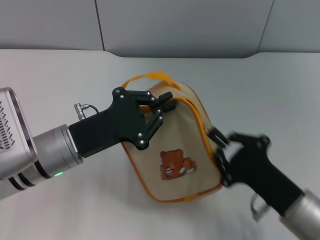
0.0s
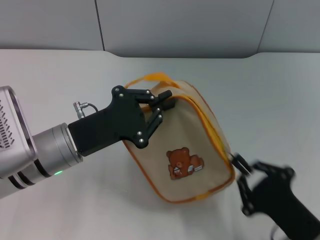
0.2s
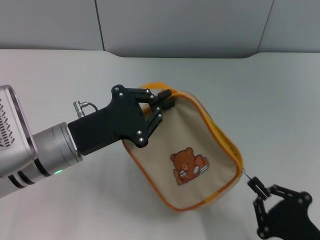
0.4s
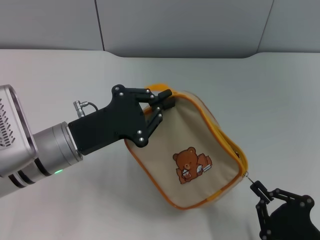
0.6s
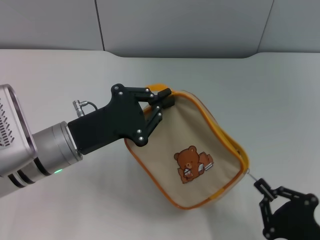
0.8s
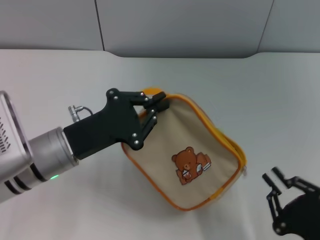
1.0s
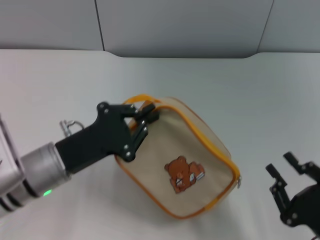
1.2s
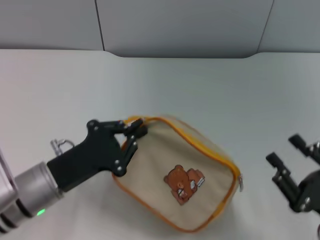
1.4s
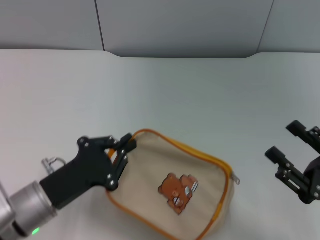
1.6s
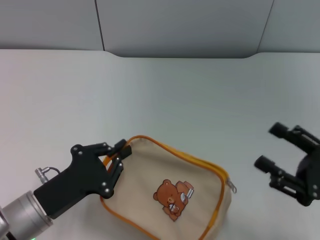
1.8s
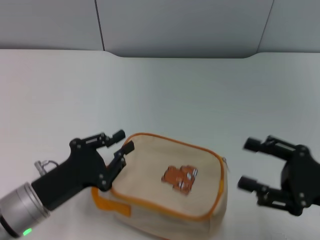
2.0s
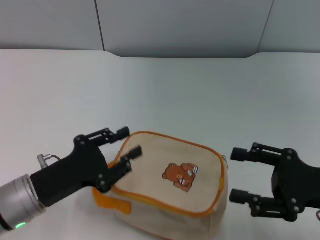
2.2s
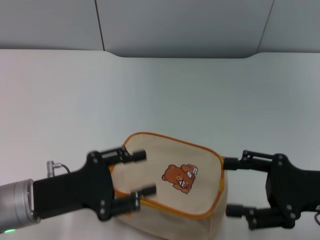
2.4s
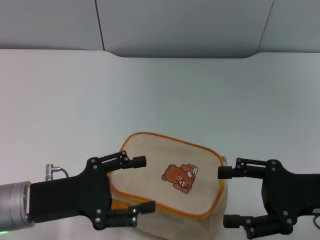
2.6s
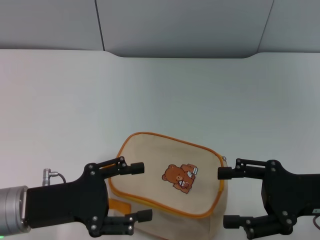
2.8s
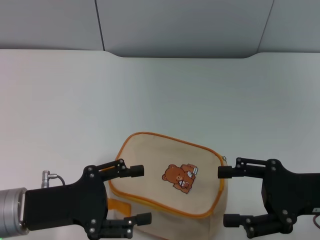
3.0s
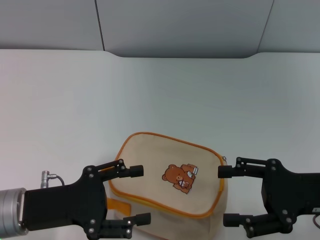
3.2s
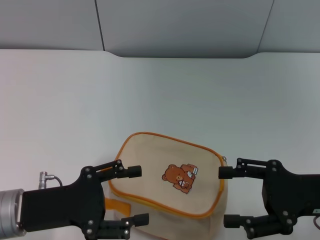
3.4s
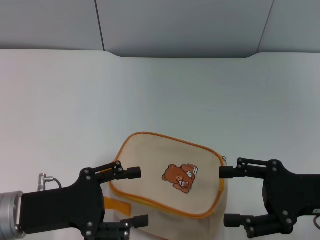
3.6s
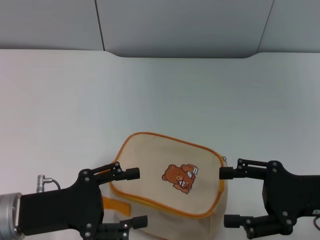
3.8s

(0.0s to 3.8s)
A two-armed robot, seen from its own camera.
Step, 1.2s - 2.2s: Place the bag on the table with left gripper.
0.0s - 1.2s: The right gripper goes roughly 10 cm backward.
1.2s - 2.6s: The right gripper heads forward and upward, covering roughly 15 cm, and opens up, while the left gripper ends up about 5 cm from where it was, and opens up.
2.6s - 3.8s: The grippers stay close to where they were, moving slightly.

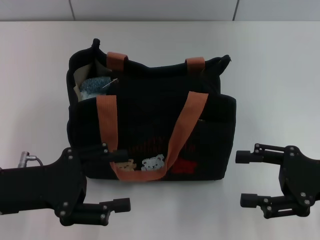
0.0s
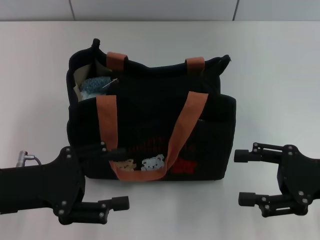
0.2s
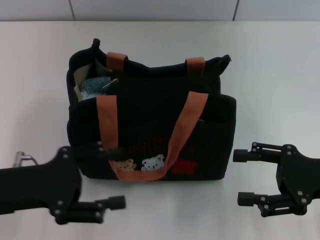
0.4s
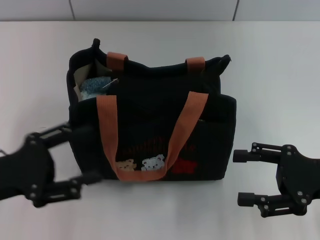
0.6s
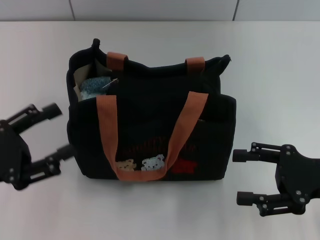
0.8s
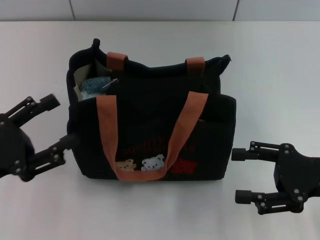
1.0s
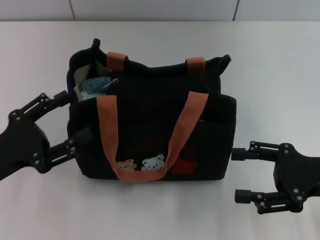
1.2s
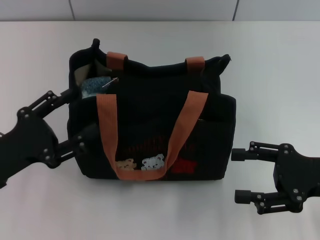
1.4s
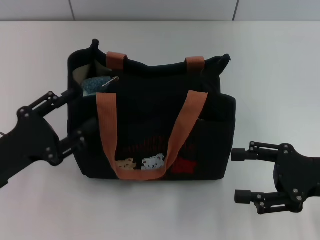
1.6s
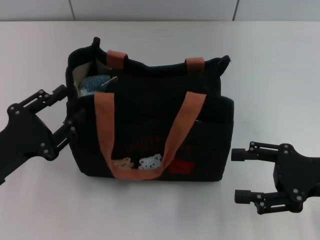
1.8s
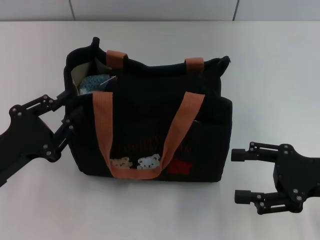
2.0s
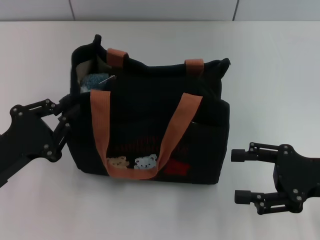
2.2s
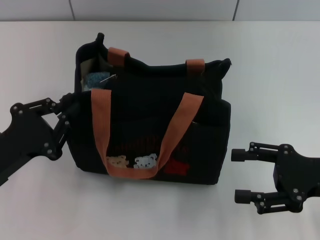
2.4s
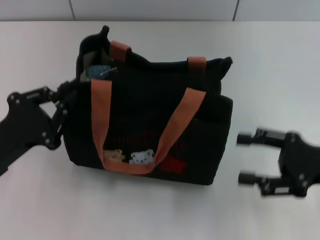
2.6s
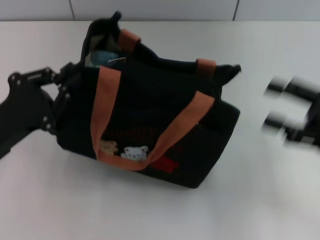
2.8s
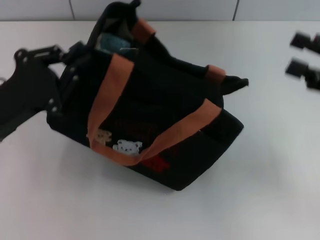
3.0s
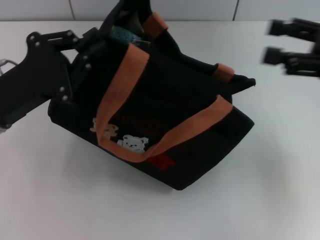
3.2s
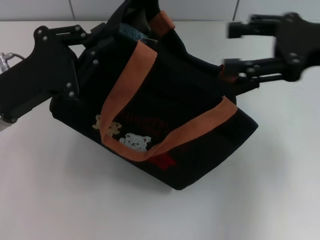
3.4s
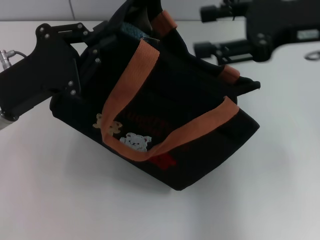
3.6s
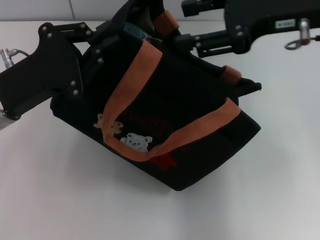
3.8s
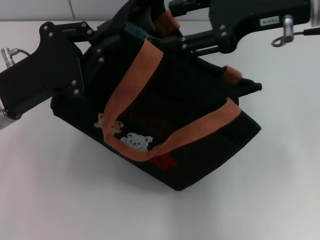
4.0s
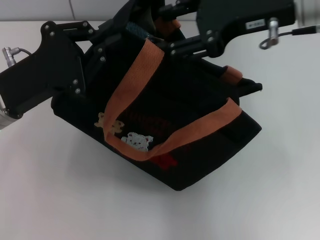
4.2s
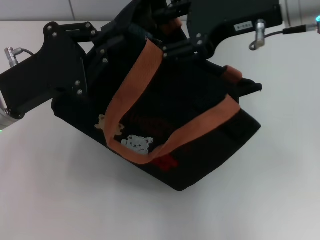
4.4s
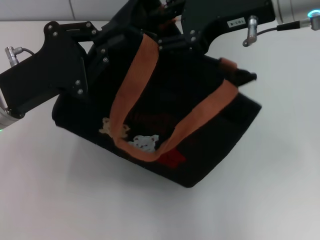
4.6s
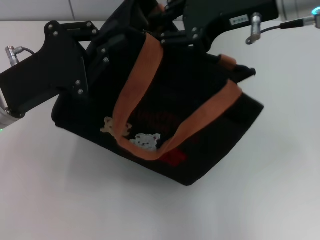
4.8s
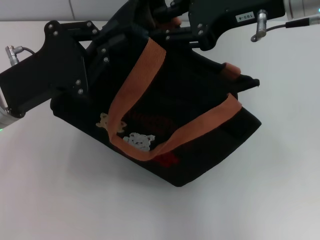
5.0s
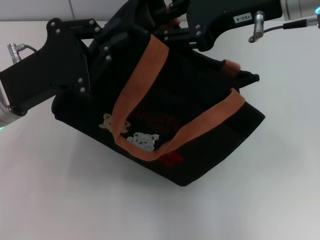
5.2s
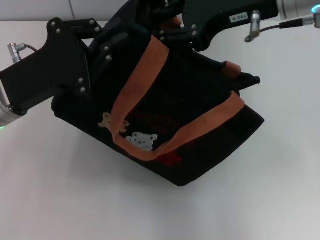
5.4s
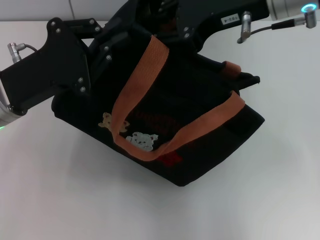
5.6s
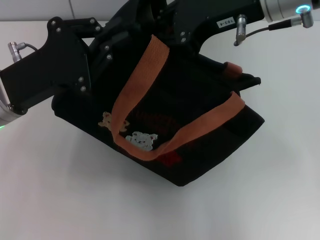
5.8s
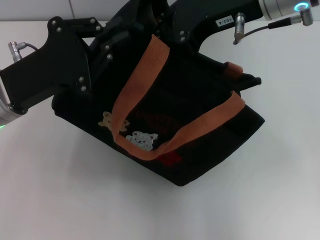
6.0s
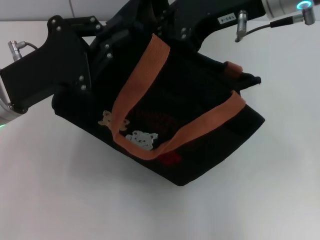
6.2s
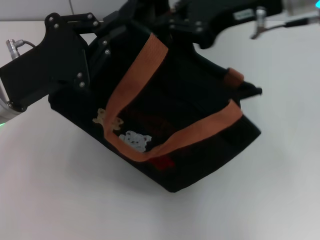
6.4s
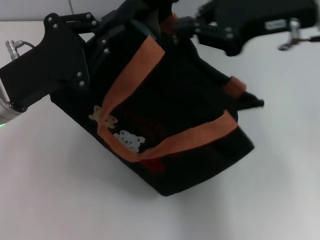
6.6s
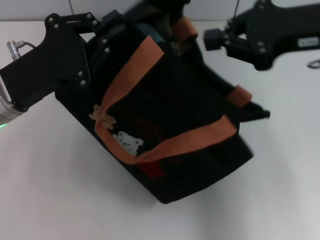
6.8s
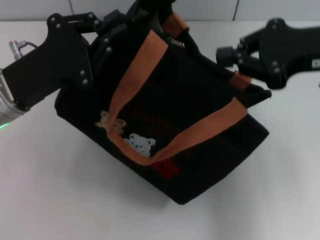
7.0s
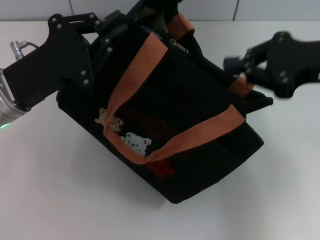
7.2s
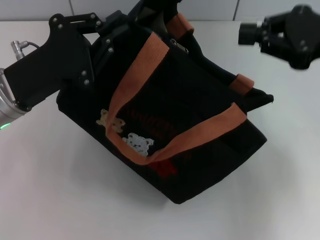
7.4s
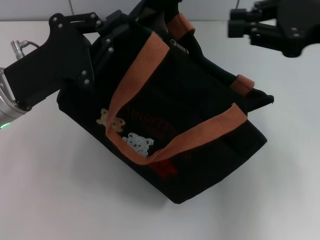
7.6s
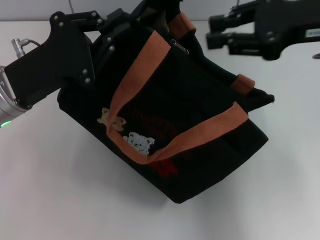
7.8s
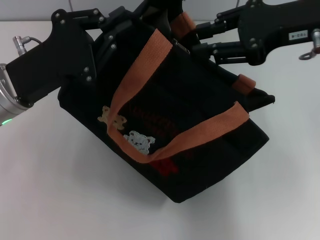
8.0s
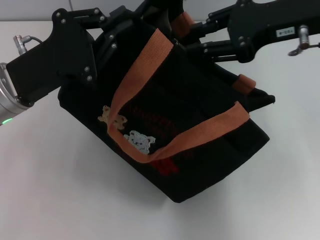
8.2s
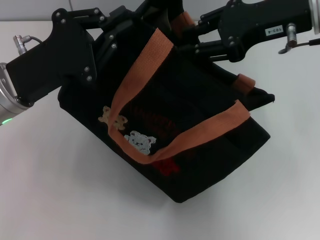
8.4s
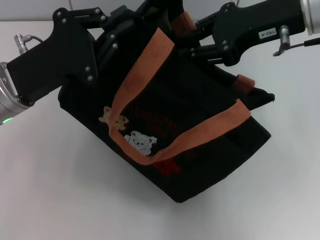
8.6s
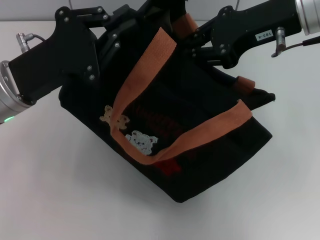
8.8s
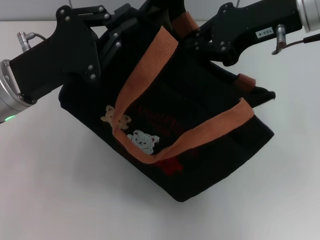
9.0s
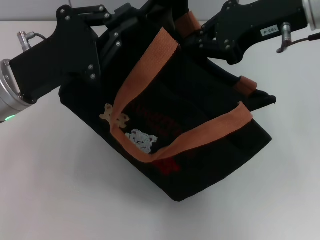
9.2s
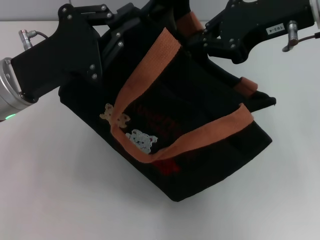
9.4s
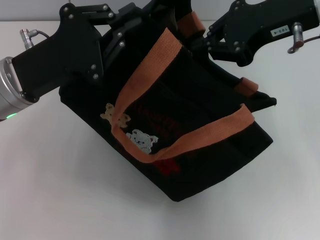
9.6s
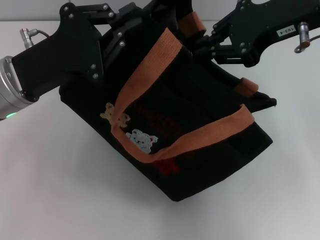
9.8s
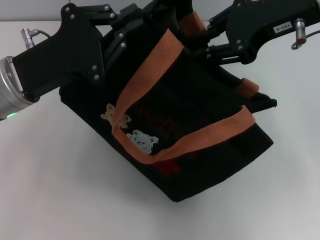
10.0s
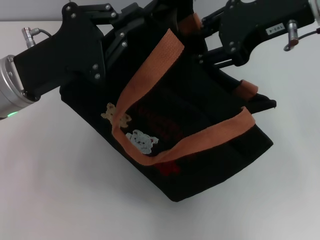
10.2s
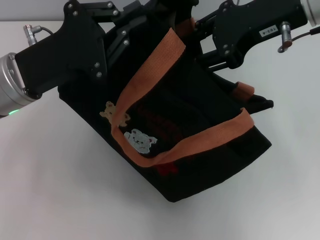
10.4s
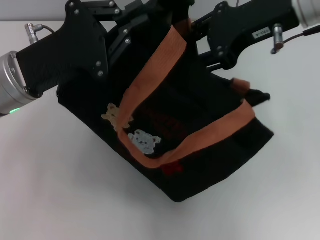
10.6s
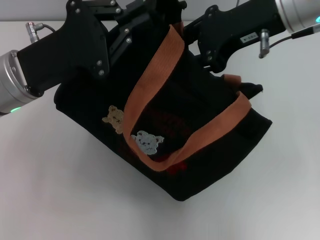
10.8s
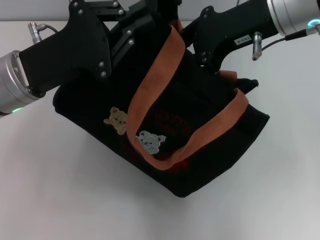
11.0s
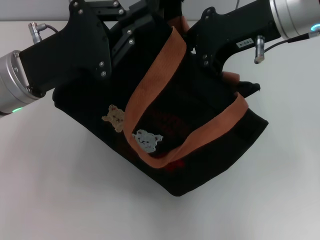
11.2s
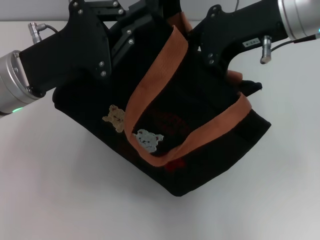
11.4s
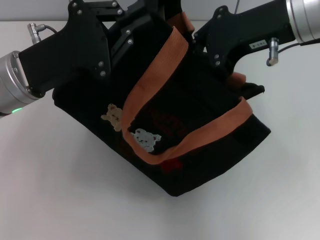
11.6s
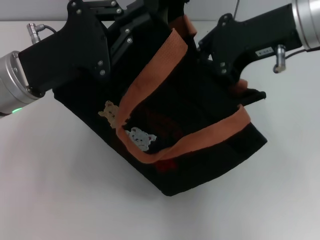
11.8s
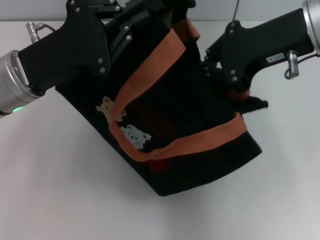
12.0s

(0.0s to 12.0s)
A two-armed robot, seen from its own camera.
1.6s - 3.0s: The right gripper heads upward, covering approximately 5 cm. The left gripper ends up about 5 cm from where it was, and closes up.
3.0s - 4.4s: The right gripper goes roughly 20 cm to the left, upward and forward.
4.4s - 6.0s: The right gripper closes up.
6.0s - 7.6s: The right gripper goes roughly 10 cm to the right.
7.6s - 9.0s: The right gripper is displaced to the left by some 5 cm.
9.0s - 10.4s: The grippers make only small movements.
10.4s - 12.0s: The right gripper closes its fingers.

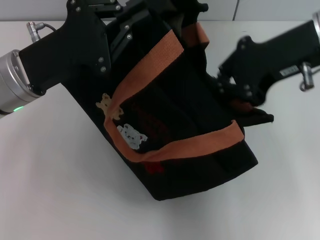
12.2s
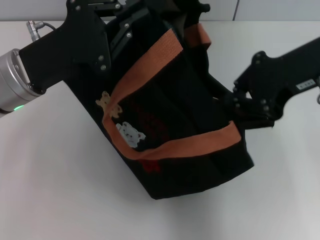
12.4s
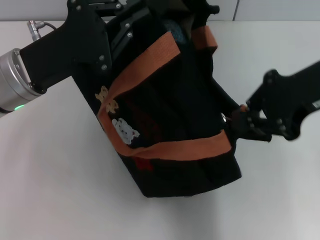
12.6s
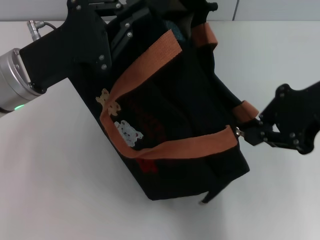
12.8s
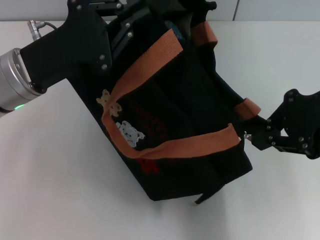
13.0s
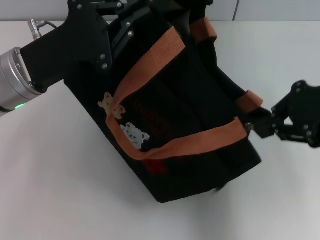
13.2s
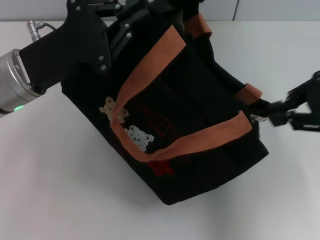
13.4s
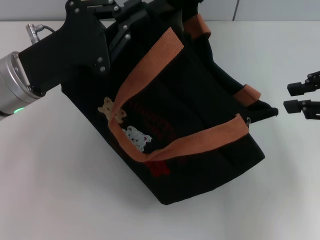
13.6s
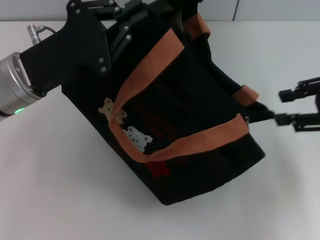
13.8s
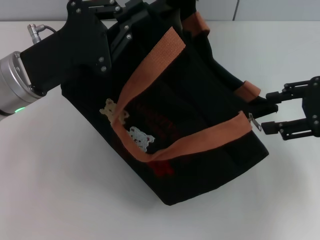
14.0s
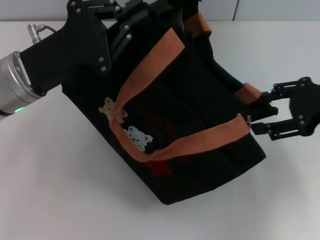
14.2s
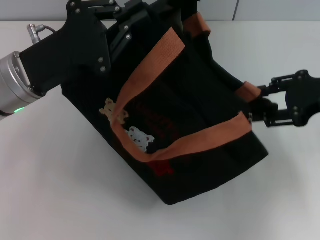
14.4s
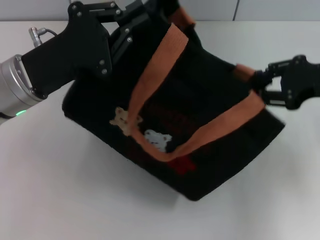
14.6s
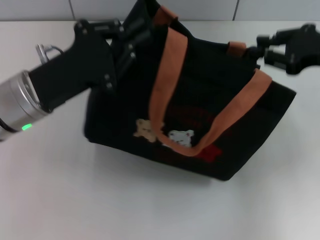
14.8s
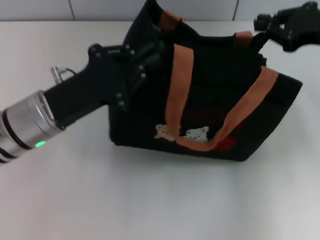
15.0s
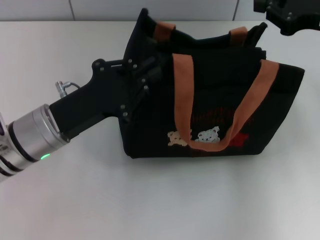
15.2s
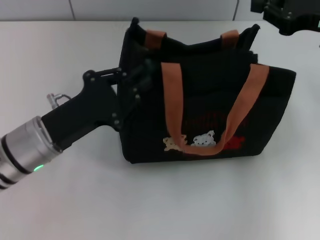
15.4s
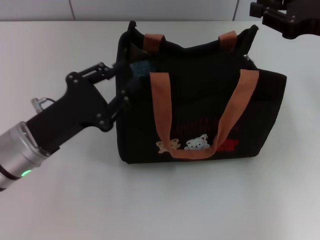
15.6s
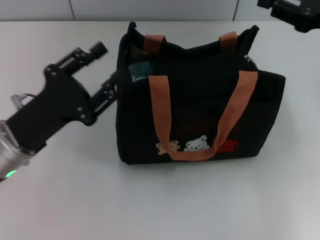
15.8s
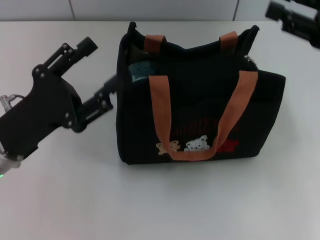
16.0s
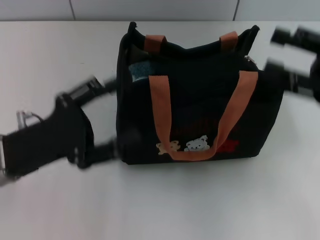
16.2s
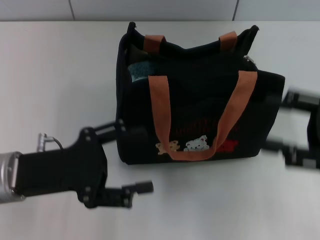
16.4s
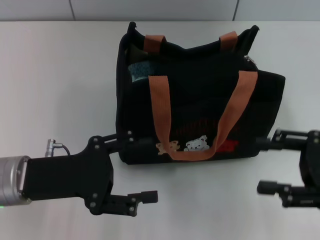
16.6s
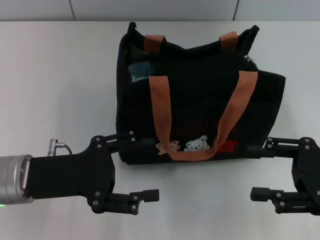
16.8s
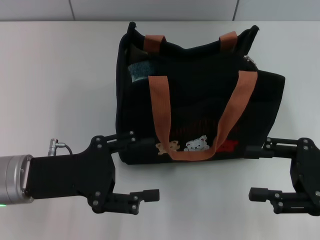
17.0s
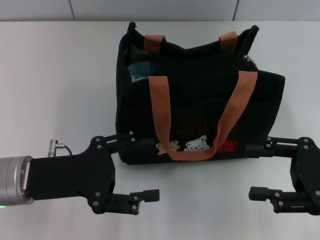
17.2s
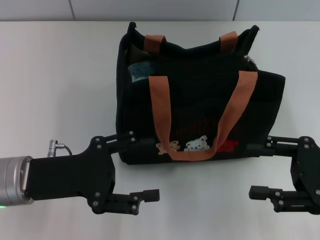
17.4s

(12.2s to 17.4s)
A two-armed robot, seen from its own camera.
Step, 13.6s - 15.6s: Grab the bag with your left hand.
12.2s - 14.0s: The right gripper moves to the right and downward, about 15 cm, and opens its fingers.
14.0s - 15.6s: The right gripper moves forward, roughly 5 cm, and closes. Meanwhile the left gripper shifts some 10 cm downward and backward.
15.6s - 17.4s: The right gripper shifts some 15 cm backward and downward, and opens its fingers, while the left gripper opens.

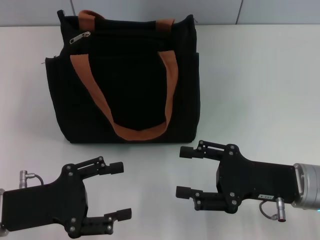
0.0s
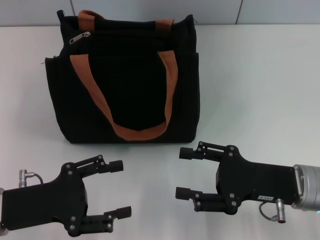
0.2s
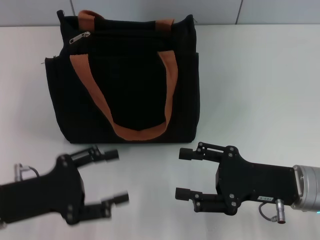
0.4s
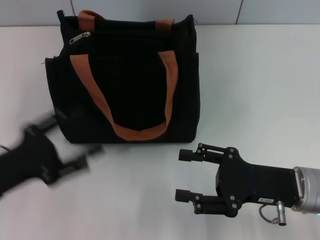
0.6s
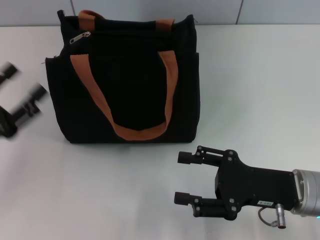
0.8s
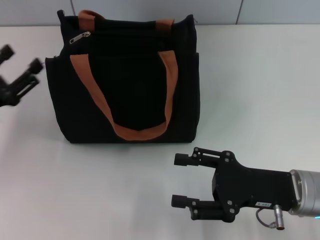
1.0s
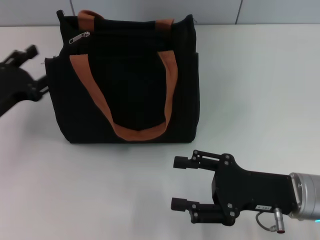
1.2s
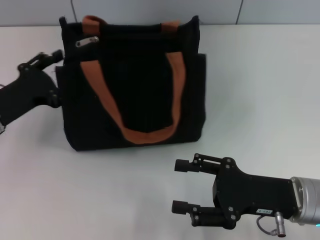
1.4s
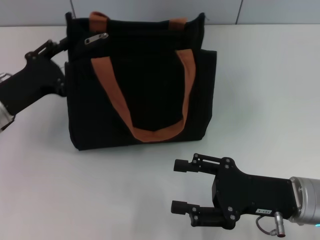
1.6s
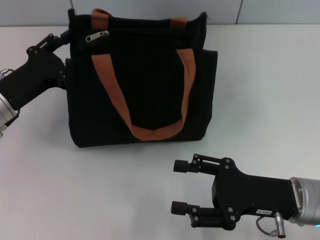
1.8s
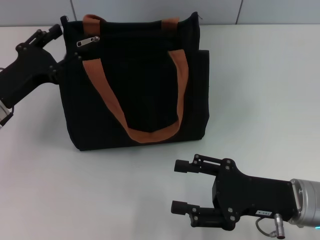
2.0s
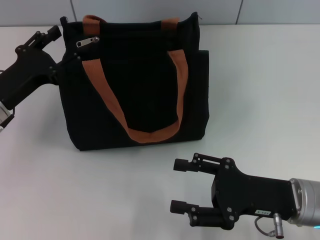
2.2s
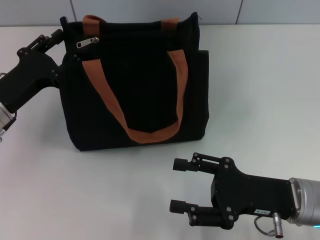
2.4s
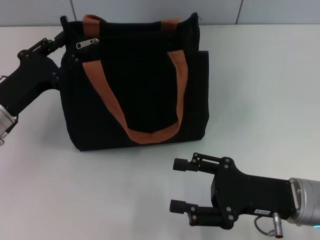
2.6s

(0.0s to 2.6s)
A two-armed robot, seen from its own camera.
0.0s - 1.2s: The left gripper moves forward, roughly 10 cm.
1.2s - 2.6s: The grippers stay close to where they were, moving slightly.
